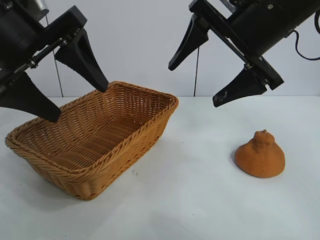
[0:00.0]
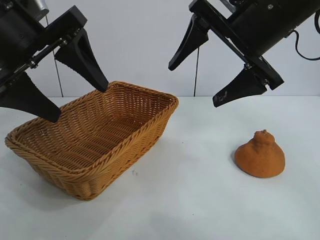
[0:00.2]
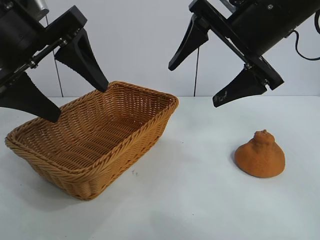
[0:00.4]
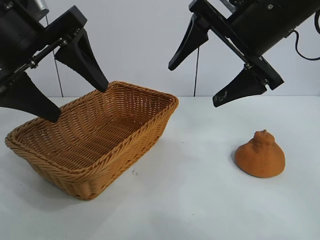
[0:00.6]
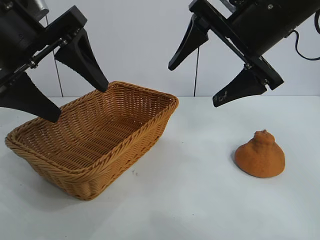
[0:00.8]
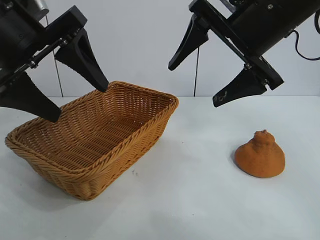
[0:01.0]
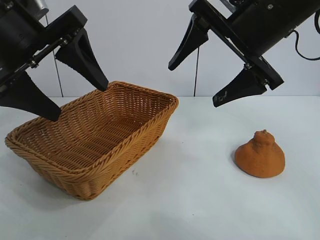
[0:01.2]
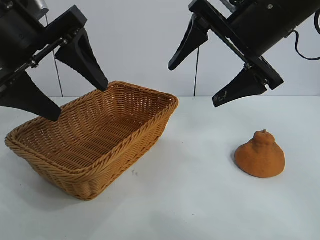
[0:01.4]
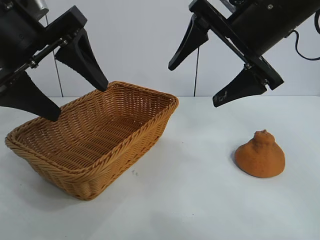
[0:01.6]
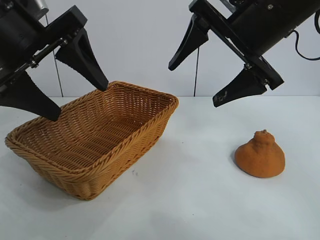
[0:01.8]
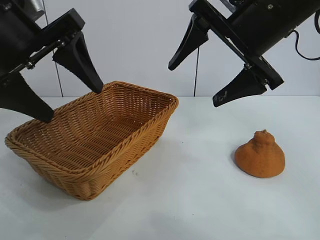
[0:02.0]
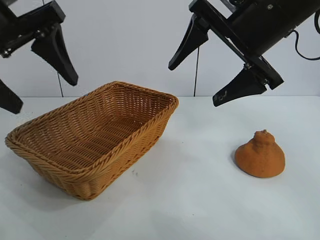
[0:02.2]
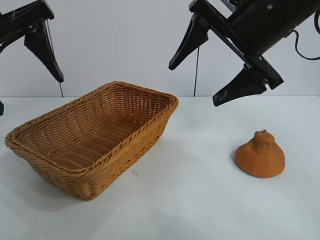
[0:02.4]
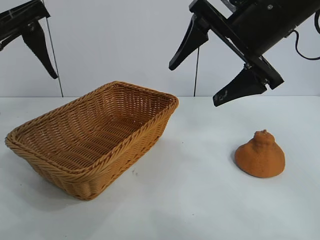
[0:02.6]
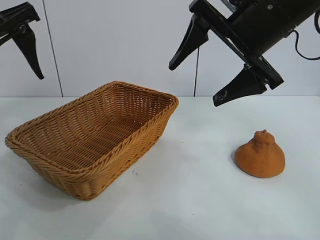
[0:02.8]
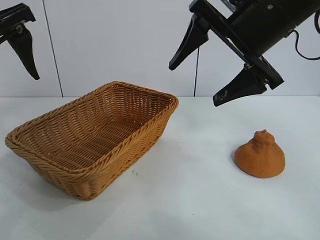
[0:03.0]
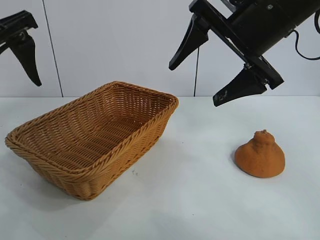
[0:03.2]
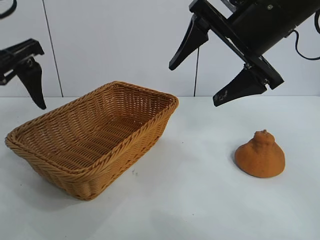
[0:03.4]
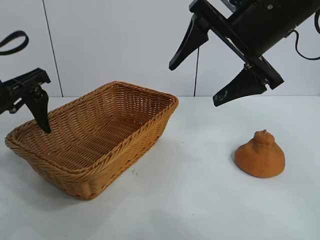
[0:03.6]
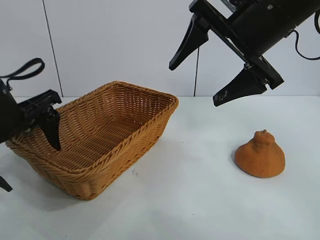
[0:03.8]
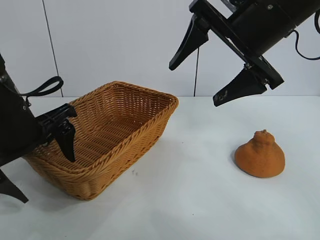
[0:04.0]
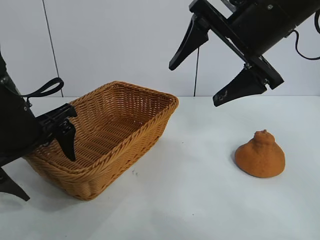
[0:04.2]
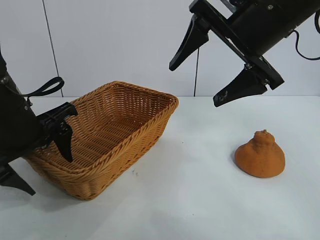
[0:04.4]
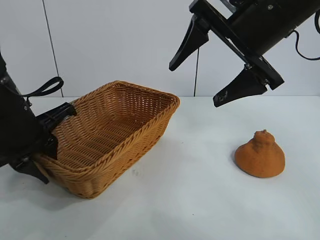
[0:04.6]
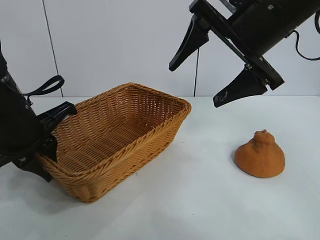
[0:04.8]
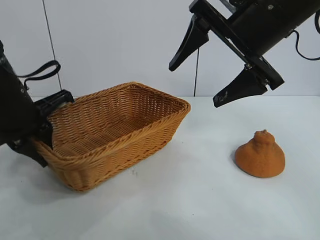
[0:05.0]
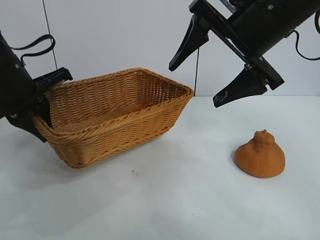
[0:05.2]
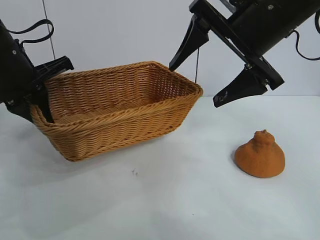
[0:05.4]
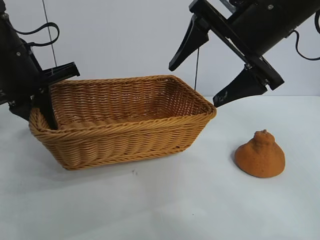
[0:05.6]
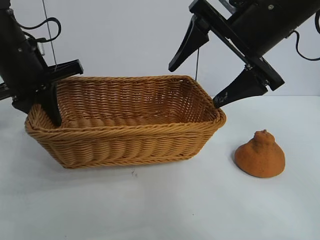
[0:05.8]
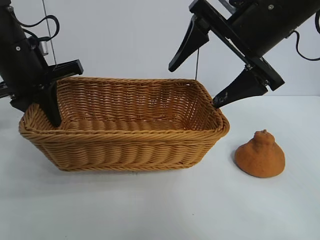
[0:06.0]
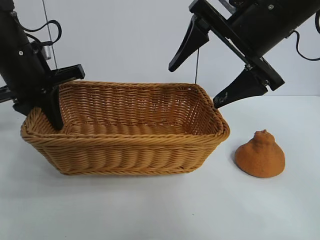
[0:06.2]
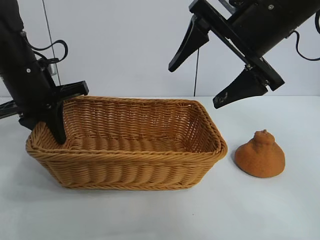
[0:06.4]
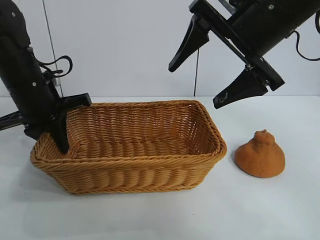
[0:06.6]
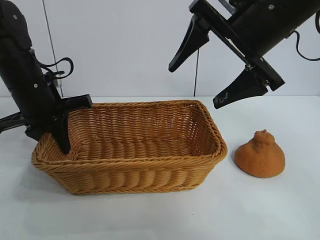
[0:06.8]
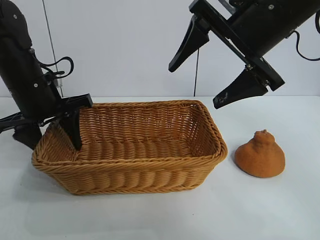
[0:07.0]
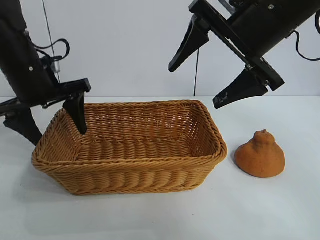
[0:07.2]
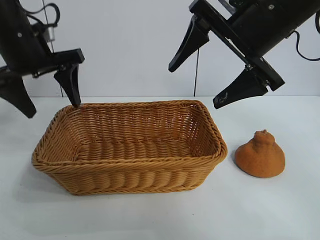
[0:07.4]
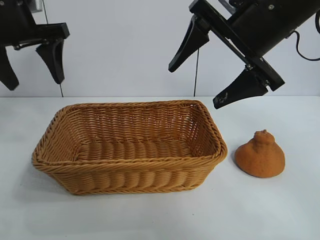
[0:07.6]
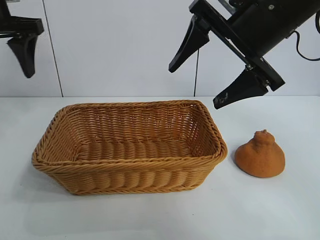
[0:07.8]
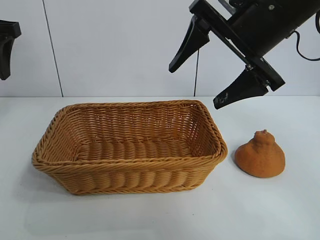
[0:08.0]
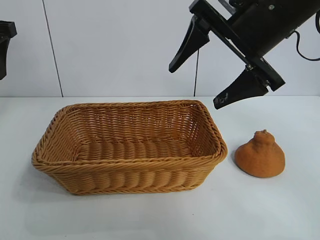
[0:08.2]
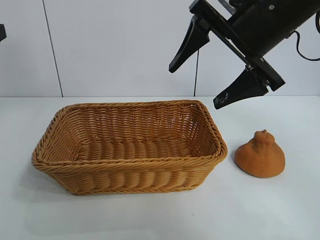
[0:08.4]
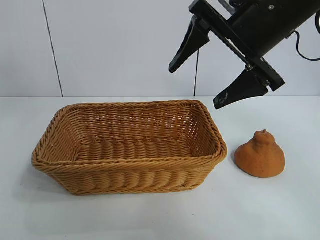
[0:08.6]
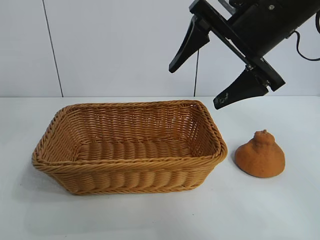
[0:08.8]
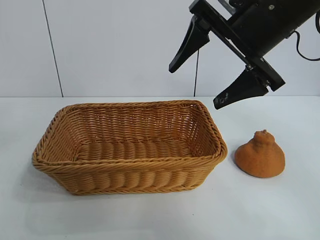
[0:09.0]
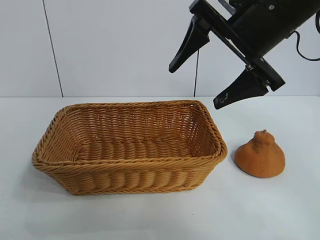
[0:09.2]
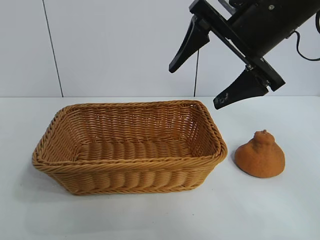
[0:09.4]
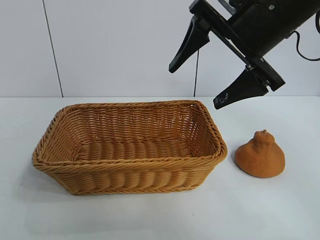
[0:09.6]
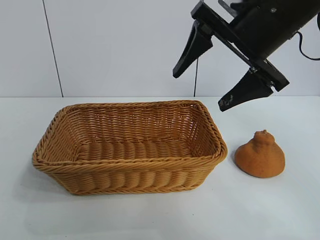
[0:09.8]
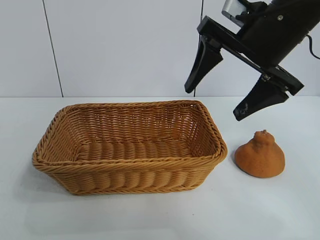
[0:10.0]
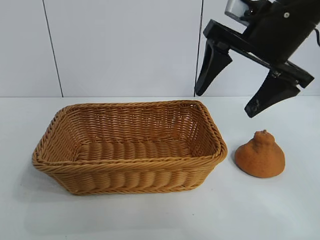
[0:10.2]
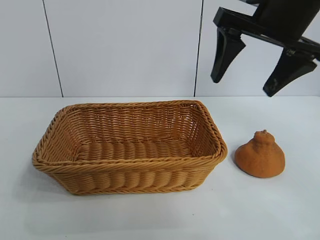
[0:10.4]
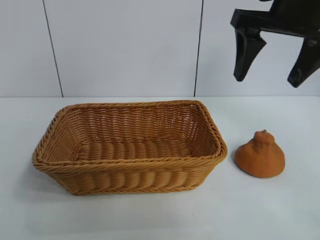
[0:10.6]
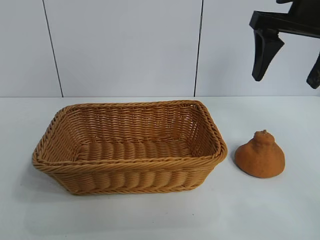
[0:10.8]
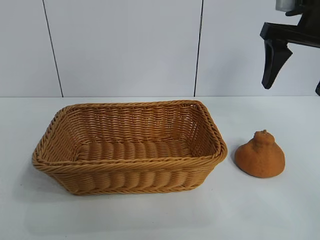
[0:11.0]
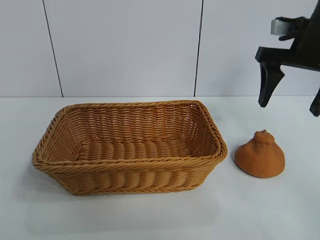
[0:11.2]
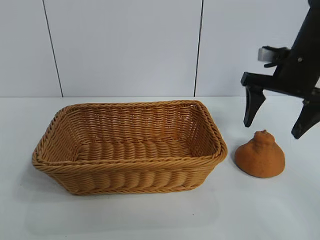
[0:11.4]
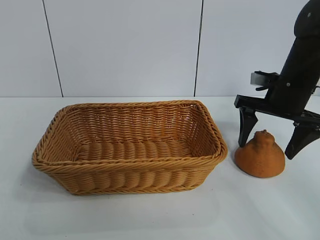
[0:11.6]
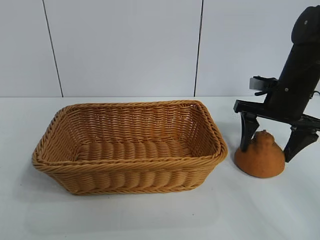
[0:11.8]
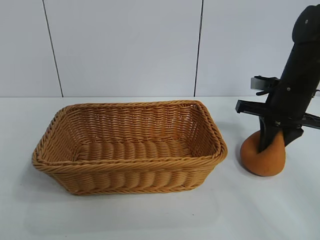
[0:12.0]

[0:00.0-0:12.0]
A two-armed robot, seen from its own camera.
Task of the whole recording: pick up the orange and put it into the basket.
Step, 0:01.6 to 0:04.6: Grasp the basket with left gripper.
Step, 0:04.8 to 0:07.0: Place the basket in the center of view with left gripper.
Step, 0:07.2 to 0:11.8: Grasp the orange with right gripper.

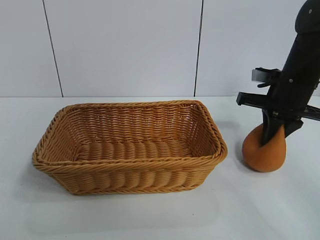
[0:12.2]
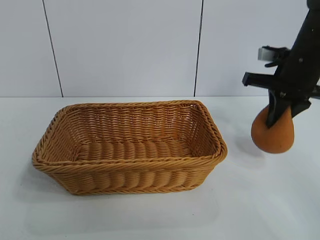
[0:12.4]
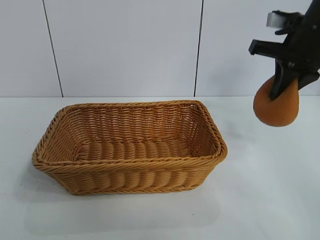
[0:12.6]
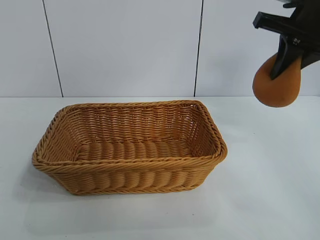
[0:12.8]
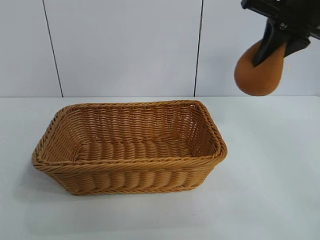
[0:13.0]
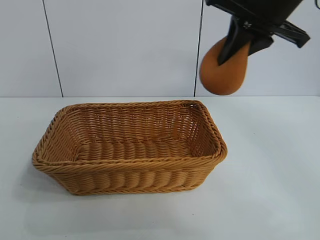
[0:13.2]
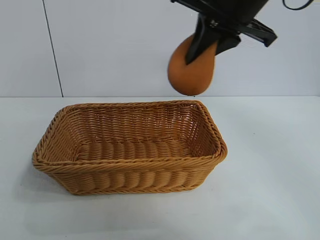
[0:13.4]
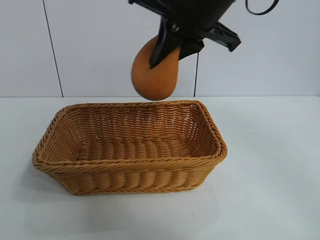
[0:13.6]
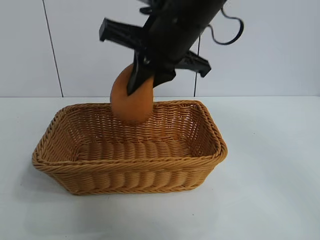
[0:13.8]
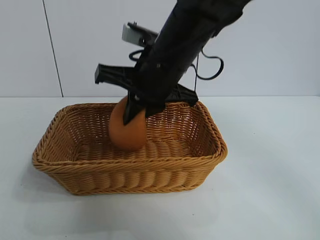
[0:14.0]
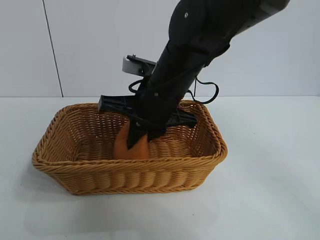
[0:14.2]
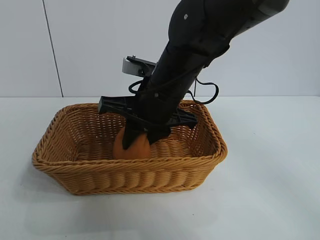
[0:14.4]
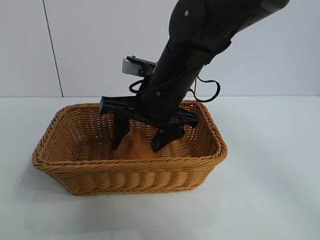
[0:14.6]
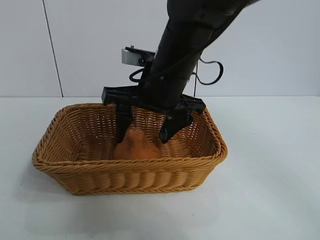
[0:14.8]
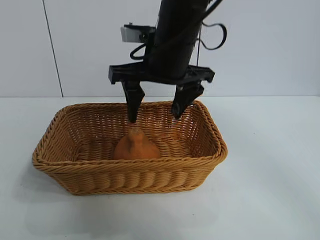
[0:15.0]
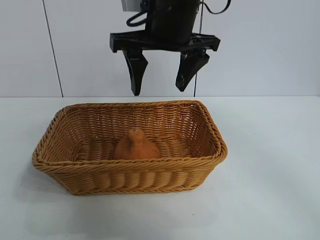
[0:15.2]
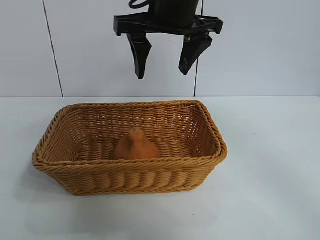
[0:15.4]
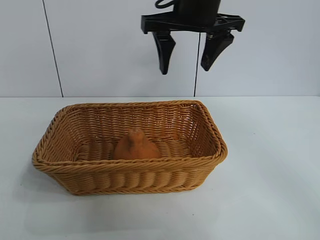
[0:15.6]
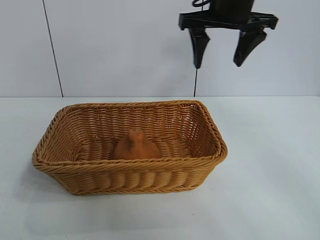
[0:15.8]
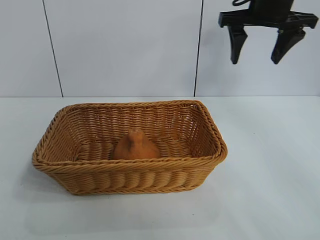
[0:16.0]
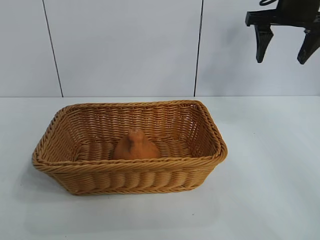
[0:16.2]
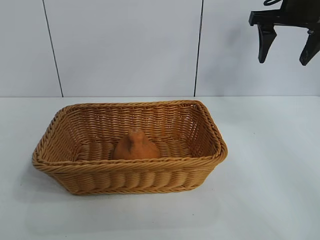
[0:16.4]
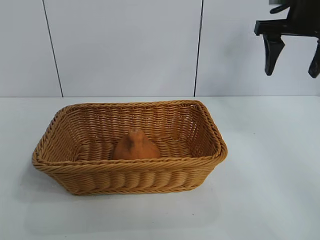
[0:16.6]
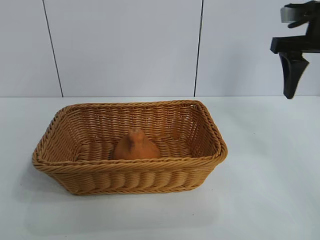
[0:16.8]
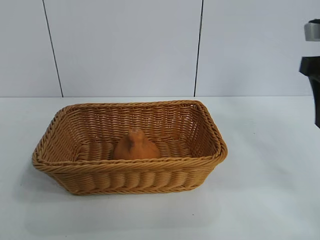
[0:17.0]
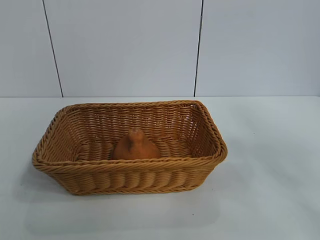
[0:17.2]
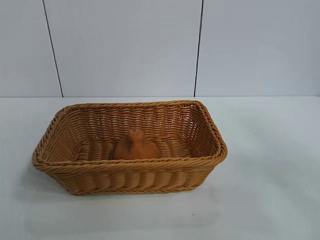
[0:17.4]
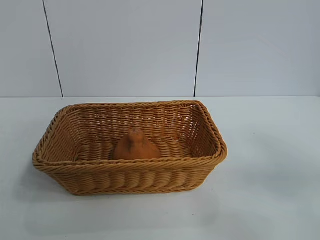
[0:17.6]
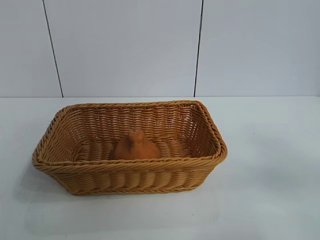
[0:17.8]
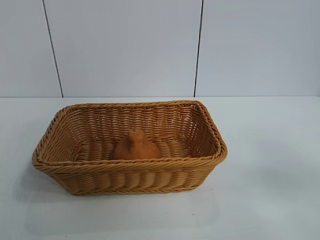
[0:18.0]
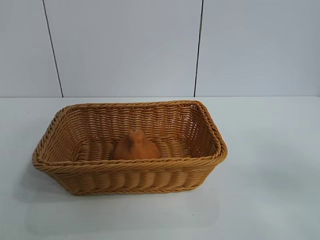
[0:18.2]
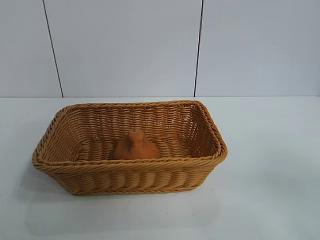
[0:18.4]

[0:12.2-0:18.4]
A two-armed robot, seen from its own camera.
Task of the whole recording: pick up the orange and put it into the basket.
Step, 0:12.2 to 0:14.8: Place the orange in the basket with right gripper.
